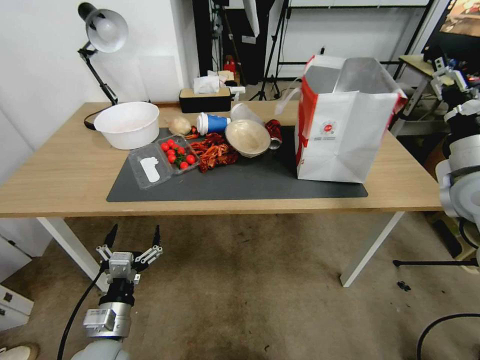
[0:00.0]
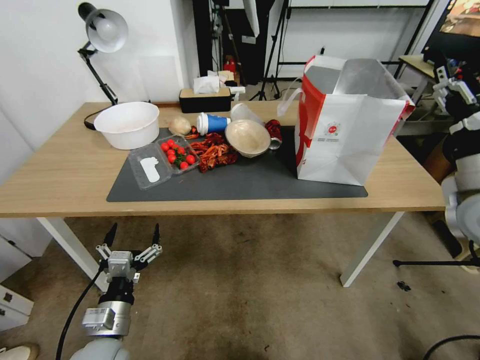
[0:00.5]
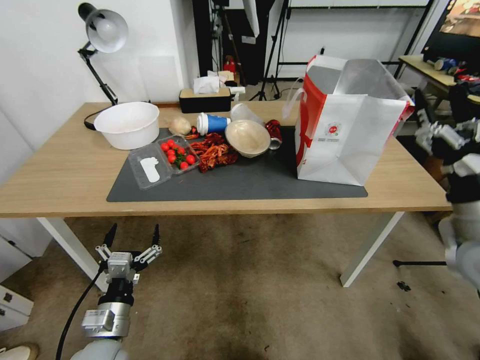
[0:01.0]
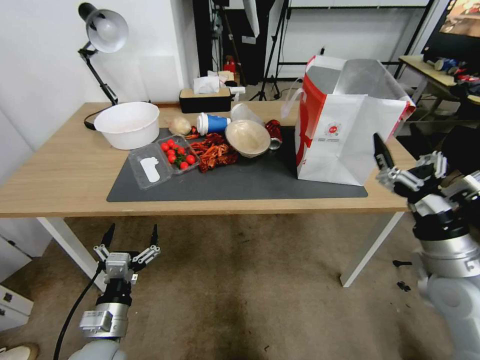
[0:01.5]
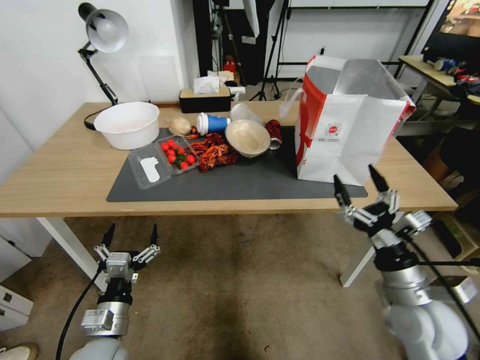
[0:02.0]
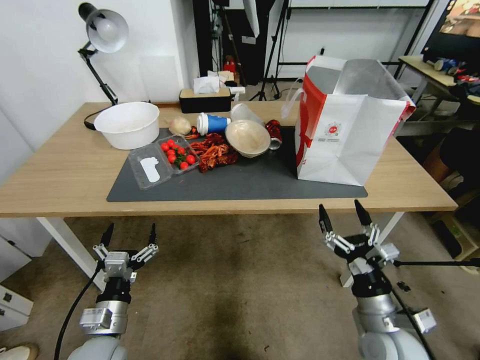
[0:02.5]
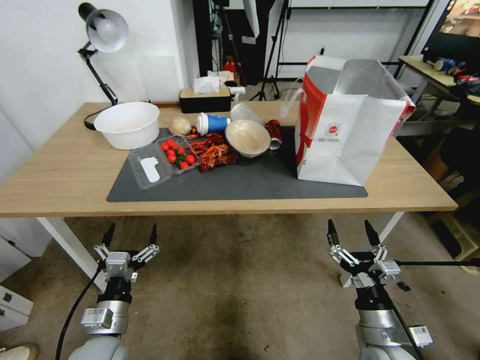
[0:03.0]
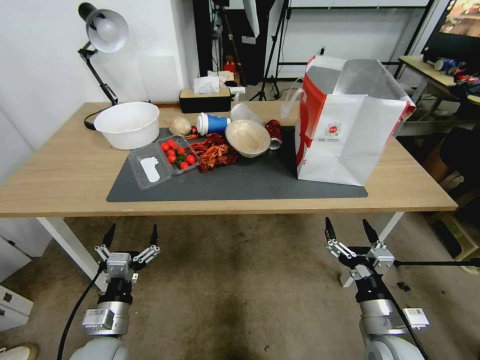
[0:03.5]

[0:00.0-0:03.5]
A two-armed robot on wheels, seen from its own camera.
Task of the whole recording: Pick up the food delivery bag from the floor and place it on the table.
0:00.0 to 0:02.0: The right gripper moves downward, backward and to the left, about 25 cm.
0:02.0 to 0:03.5: The right gripper travels downward by roughly 10 cm.
